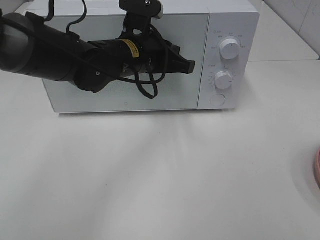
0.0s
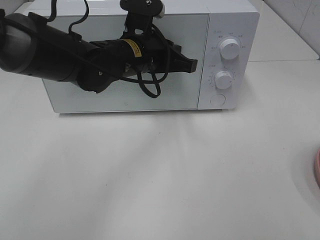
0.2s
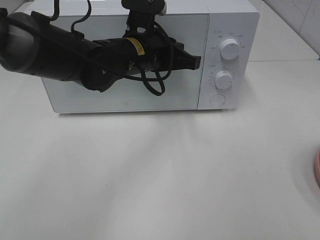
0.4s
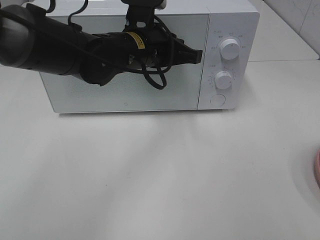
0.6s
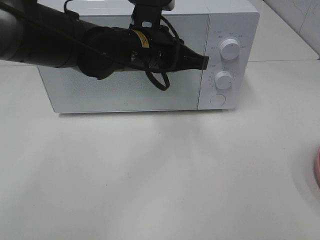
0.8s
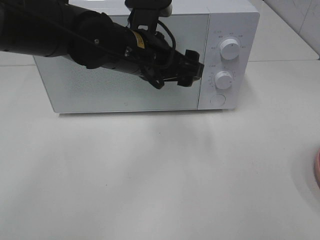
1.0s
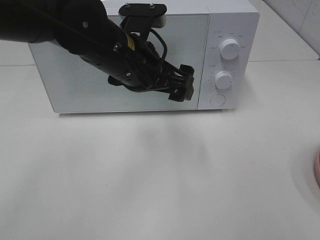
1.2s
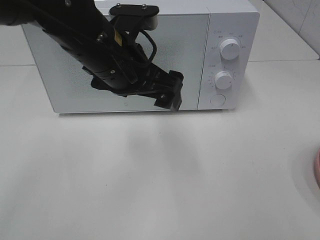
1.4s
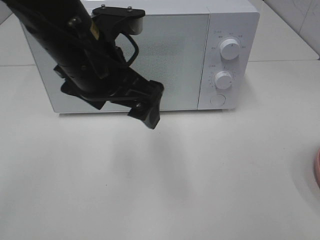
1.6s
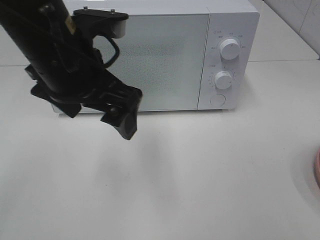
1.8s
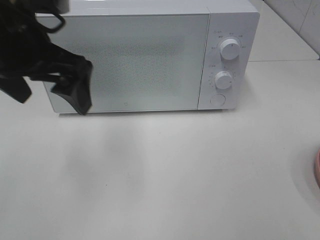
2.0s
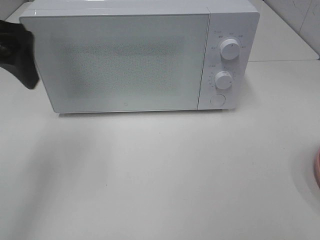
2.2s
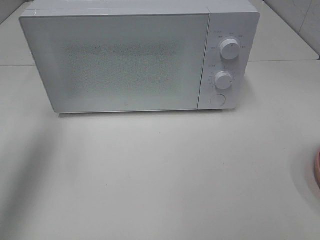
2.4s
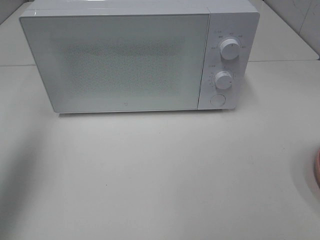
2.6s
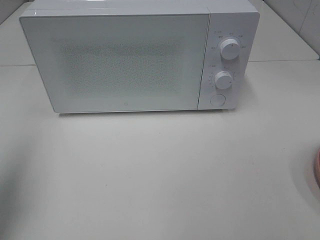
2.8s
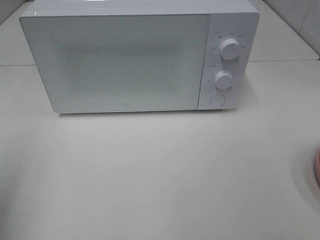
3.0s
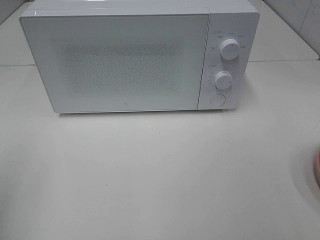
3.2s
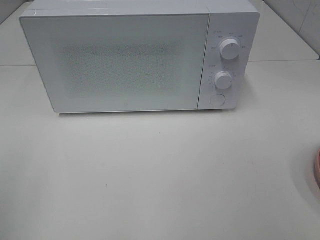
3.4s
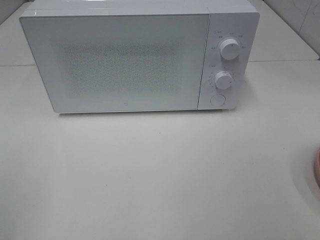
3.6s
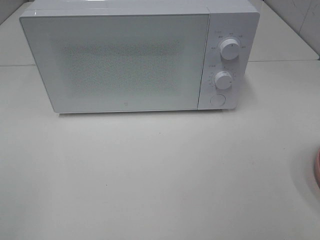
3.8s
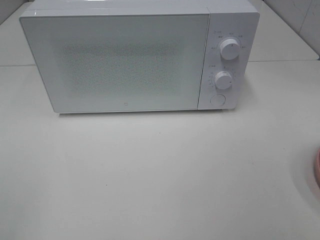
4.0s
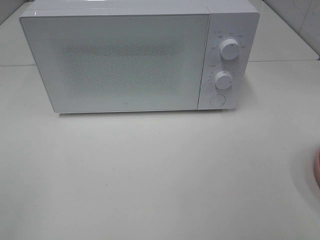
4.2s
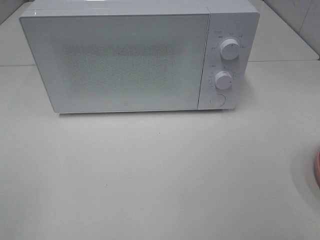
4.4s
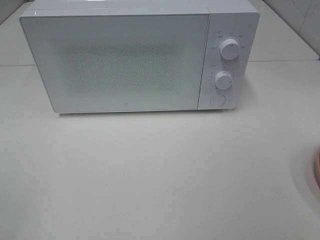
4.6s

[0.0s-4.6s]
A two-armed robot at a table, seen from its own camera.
Task of the whole recording: Heat the burger.
0.0s to 1.6s: The left gripper travels backward and upward by roughly 15 cm, and opens up.
1.6s to 3.0s: The left gripper is displaced to the left and backward by about 30 cm.
3.0s to 4.6s: The left gripper goes some 15 cm backward.

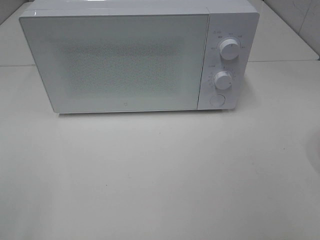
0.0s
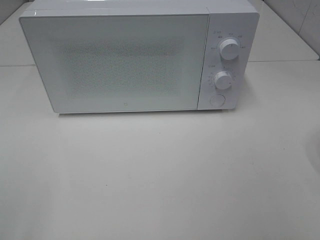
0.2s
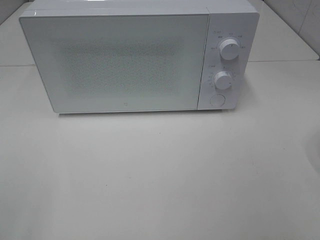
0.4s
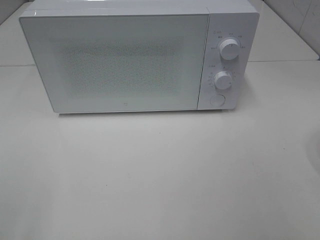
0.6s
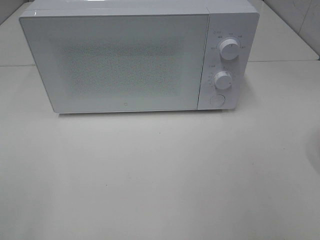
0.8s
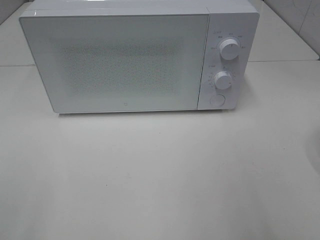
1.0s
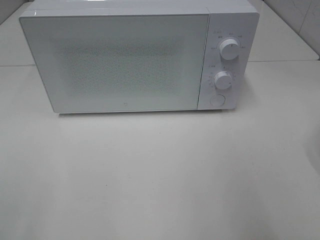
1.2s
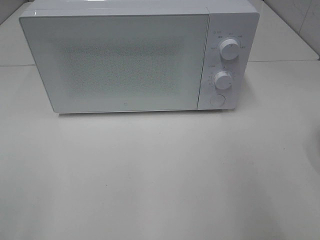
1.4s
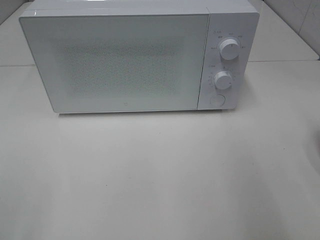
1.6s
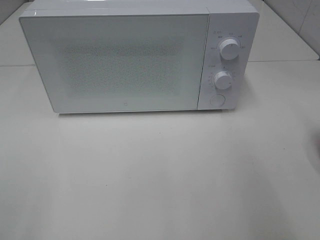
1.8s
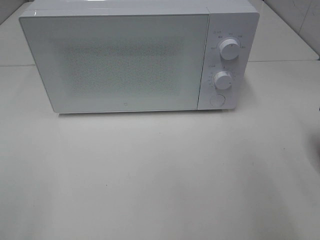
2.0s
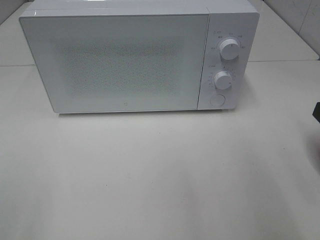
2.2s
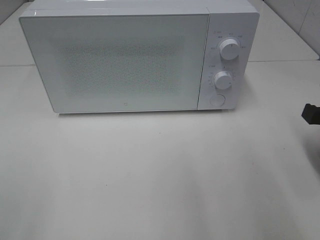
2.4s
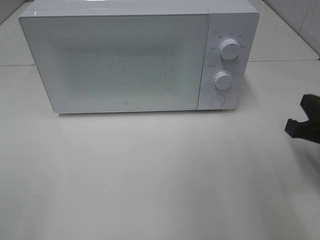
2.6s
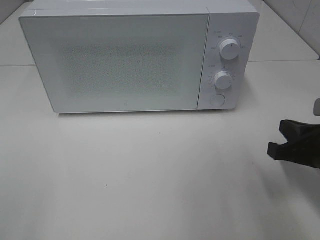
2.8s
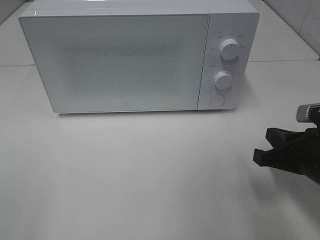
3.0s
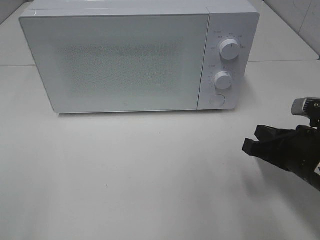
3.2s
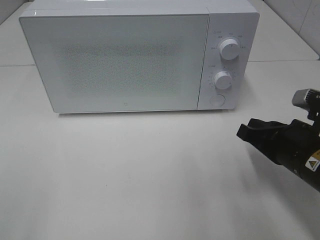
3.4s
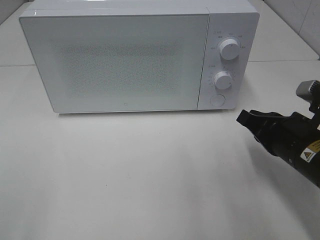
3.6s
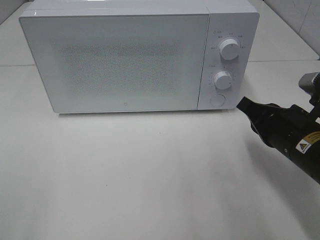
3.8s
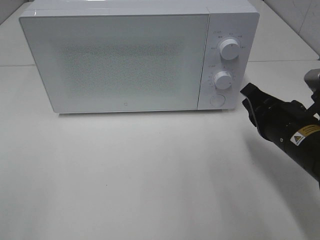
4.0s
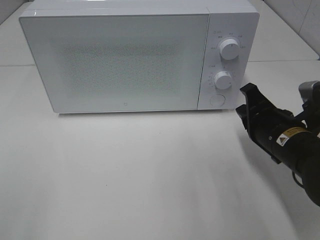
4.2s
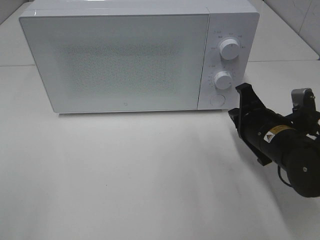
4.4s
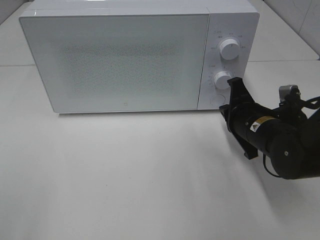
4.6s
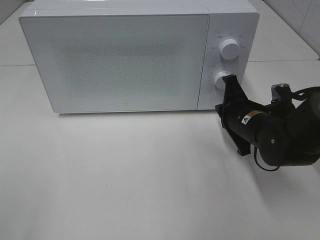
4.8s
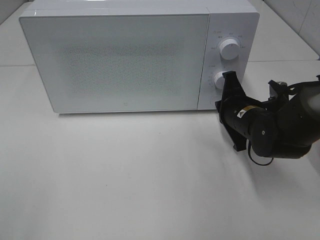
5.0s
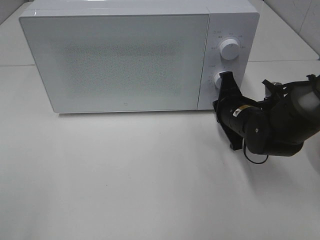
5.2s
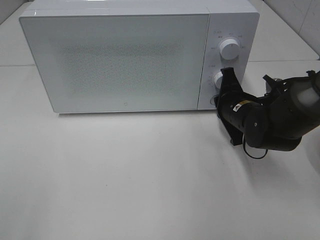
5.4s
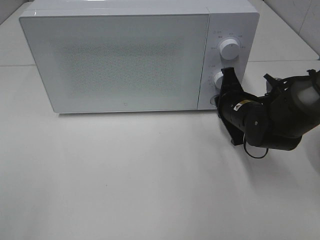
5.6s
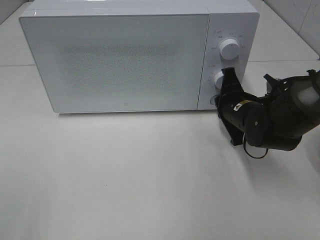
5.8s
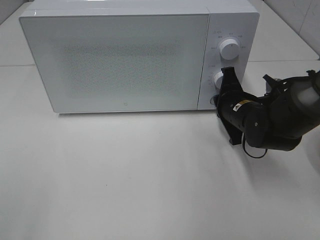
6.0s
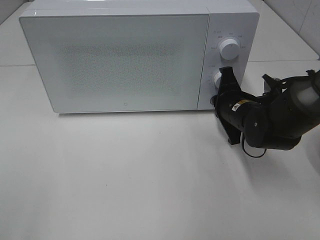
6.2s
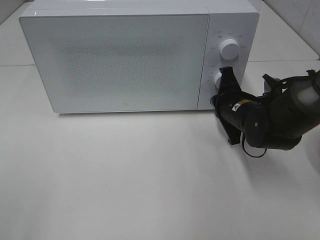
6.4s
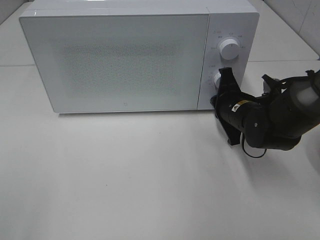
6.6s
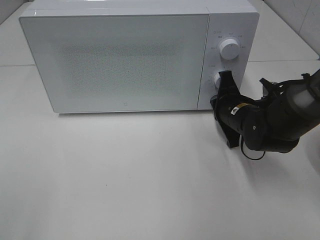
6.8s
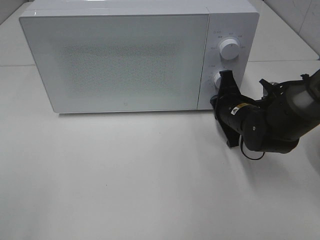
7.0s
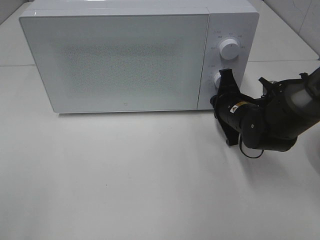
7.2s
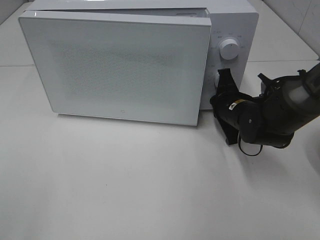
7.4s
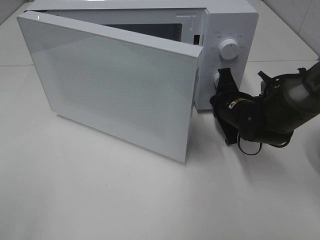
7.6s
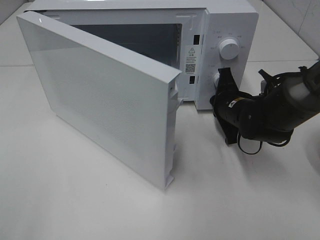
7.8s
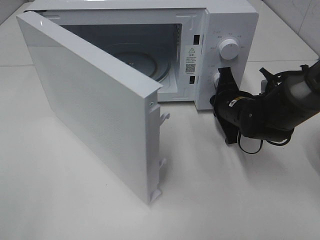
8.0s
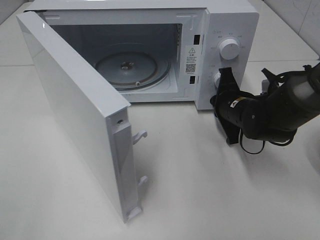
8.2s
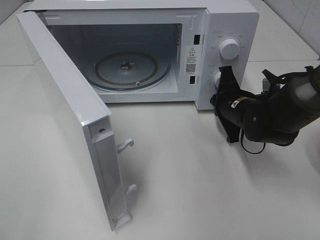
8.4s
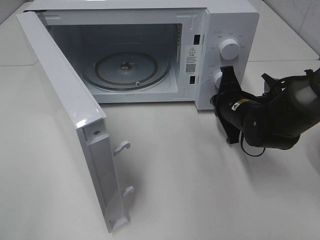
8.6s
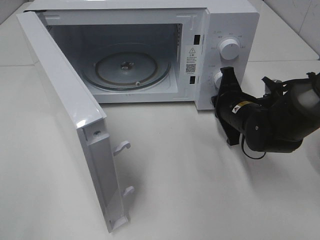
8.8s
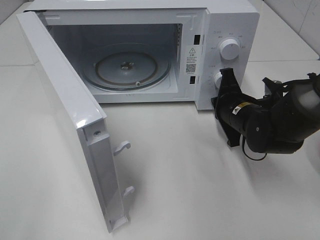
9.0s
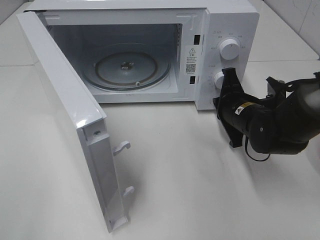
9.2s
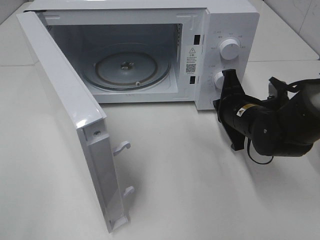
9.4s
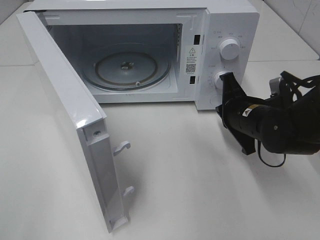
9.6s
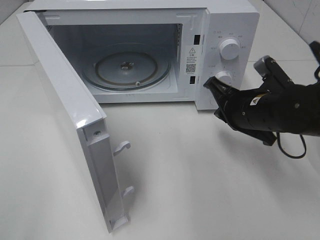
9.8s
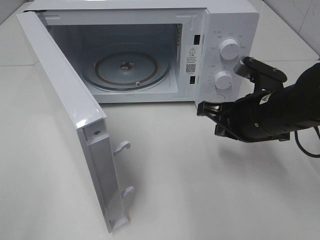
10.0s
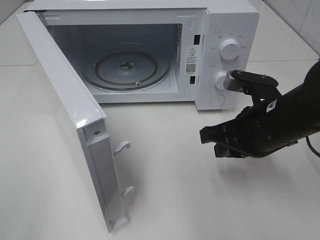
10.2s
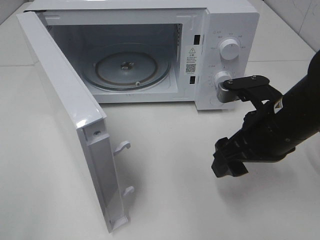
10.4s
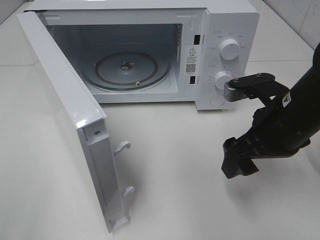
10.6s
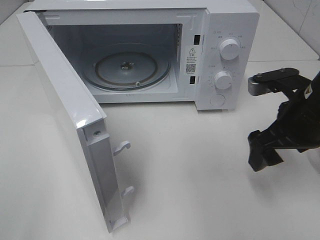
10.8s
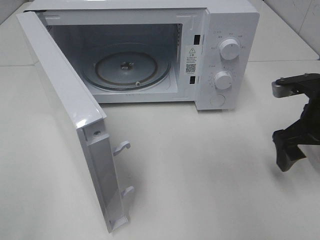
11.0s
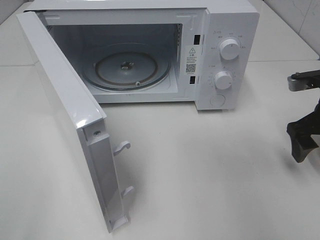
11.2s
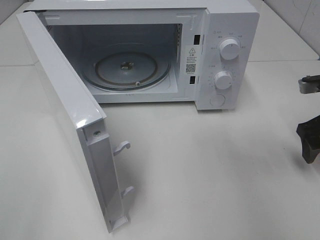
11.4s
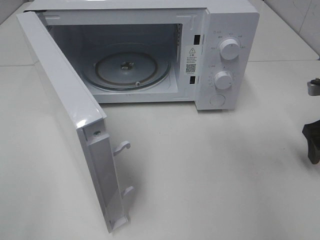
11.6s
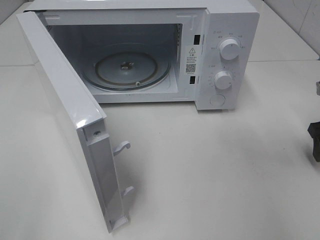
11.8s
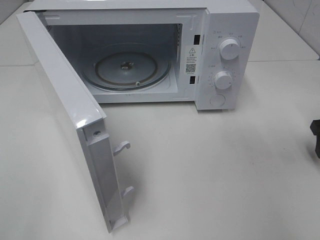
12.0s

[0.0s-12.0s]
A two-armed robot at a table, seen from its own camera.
Task of the whole recording: Heat the burger.
Step, 0.0s to 9.4s: Right hand: press the switch.
1.6s to 3.0s: The right gripper shifts about 15 cm downward.
3.0s to 4.4s: The right gripper heads forward and to the left, covering about 10 cm.
4.4s to 6.0s: The right gripper goes some 10 cm forward.
6.0s to 7.6s: The grippers move only a little.
9.0s to 10.4s: The right gripper is displaced backward and upward by some 15 cm, and opens its fingers.
10.4s to 12.0s: The right gripper goes some 20 cm to the right.

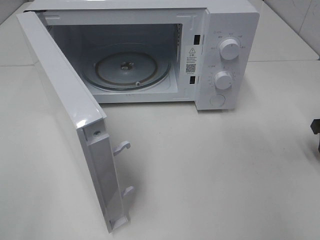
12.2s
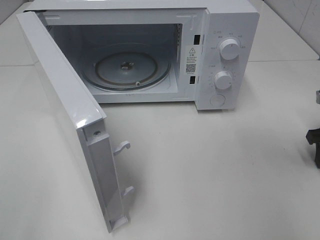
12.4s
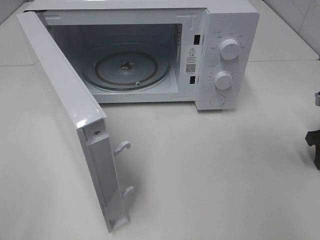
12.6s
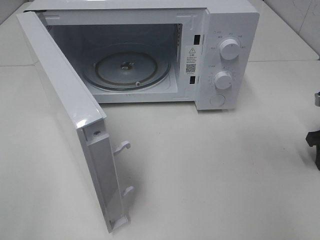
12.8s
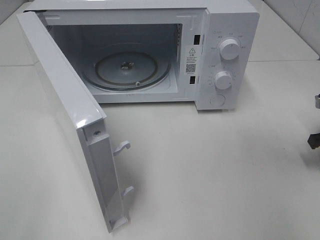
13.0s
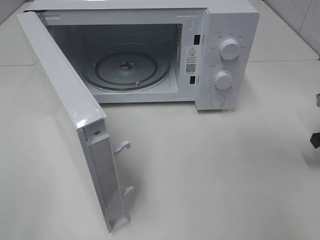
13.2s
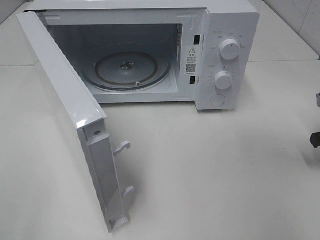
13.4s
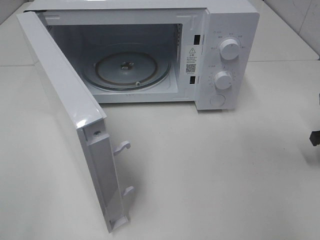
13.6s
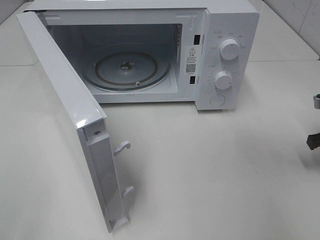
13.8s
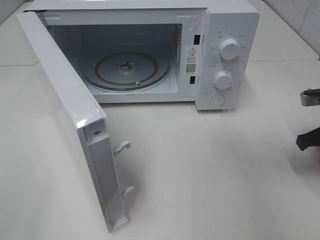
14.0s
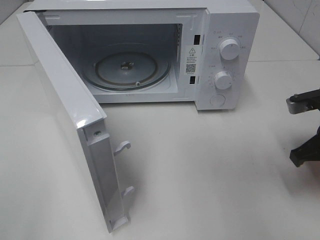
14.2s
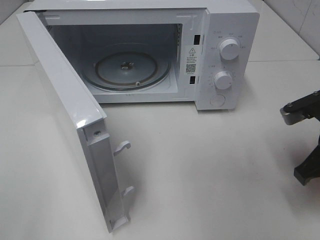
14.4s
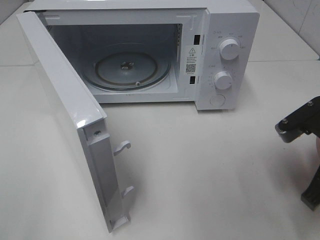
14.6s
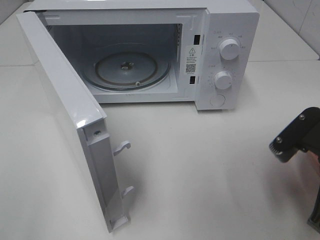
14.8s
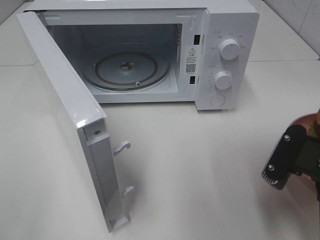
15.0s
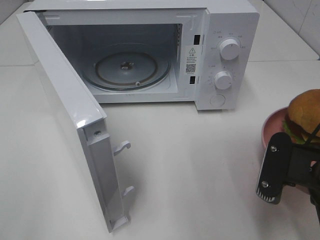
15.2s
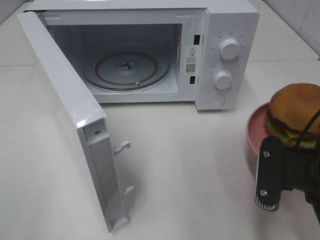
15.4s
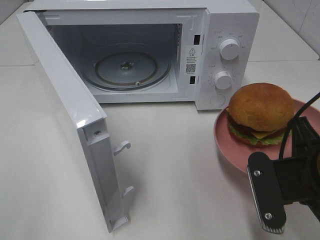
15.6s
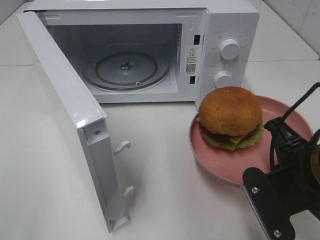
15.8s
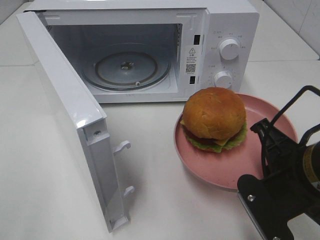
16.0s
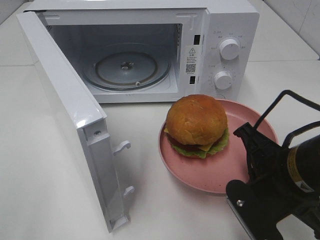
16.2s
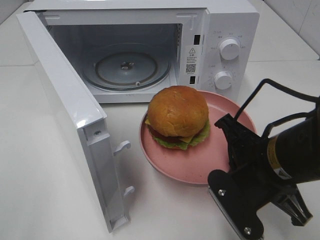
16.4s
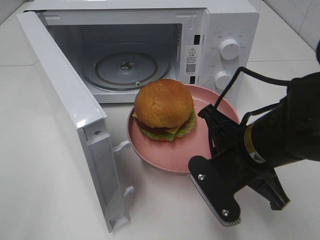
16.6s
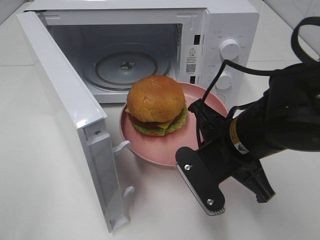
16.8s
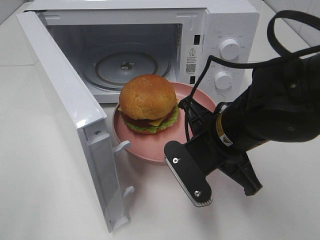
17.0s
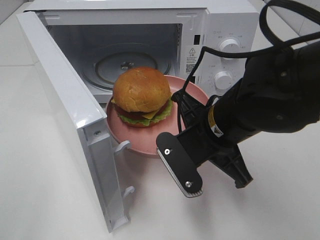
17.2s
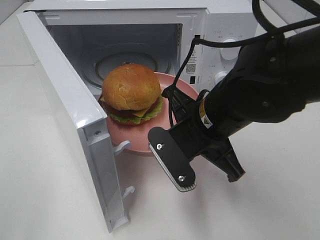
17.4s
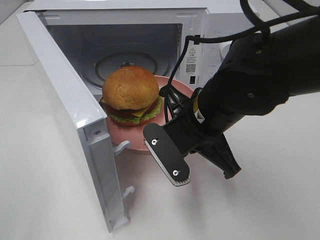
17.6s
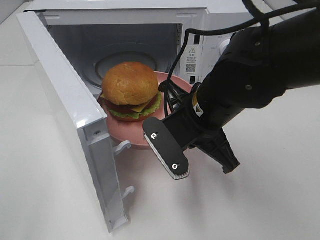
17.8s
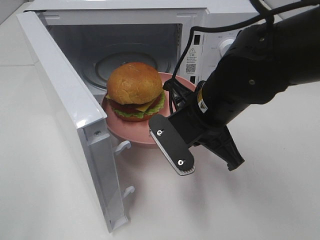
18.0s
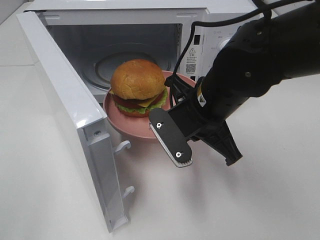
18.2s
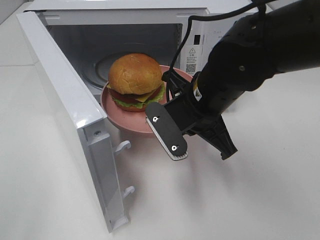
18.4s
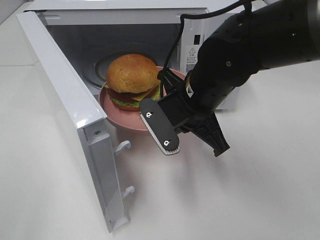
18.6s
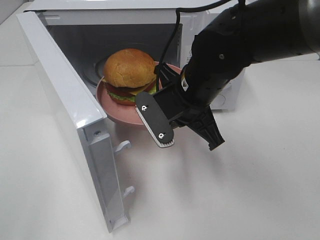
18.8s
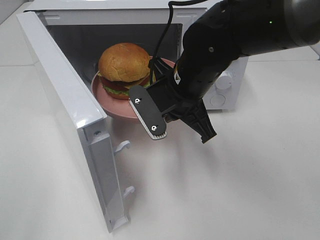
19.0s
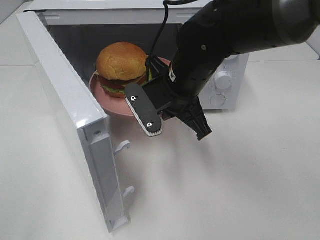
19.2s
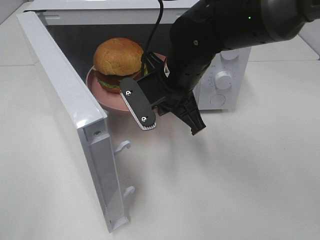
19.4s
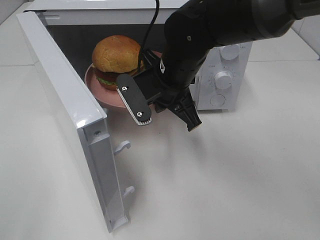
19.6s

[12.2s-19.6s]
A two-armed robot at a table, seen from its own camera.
Task of the whole recording: Heat the burger.
13.6s to 15.2s: The right gripper shifts roughly 25 cm to the left and backward.
15.2s to 16.6s: The right gripper is displaced to the left by about 10 cm.
16.6s to 18.2s: The right gripper goes some 5 cm forward.
18.2s to 19.6s: The right gripper shifts about 5 cm forward.
